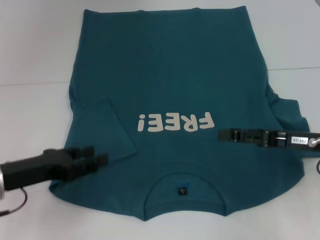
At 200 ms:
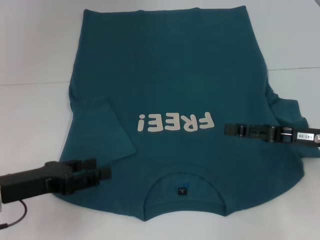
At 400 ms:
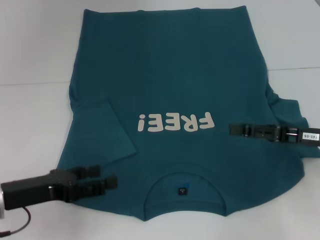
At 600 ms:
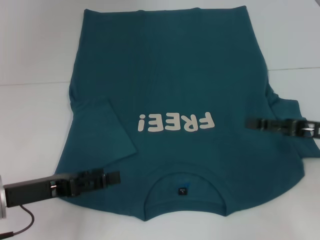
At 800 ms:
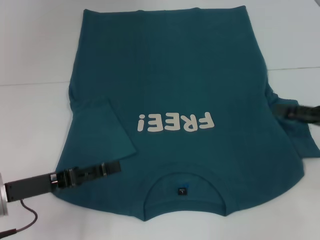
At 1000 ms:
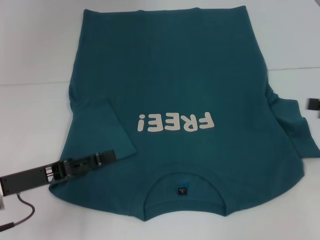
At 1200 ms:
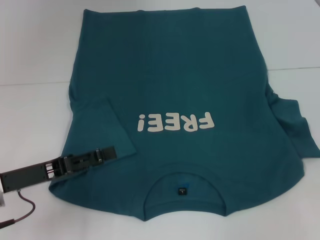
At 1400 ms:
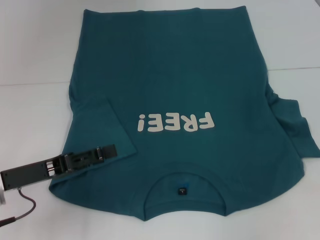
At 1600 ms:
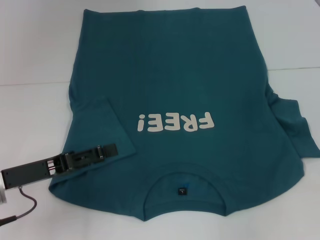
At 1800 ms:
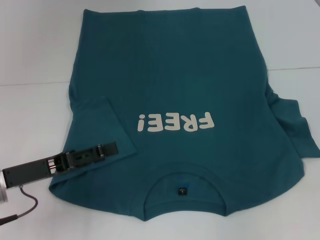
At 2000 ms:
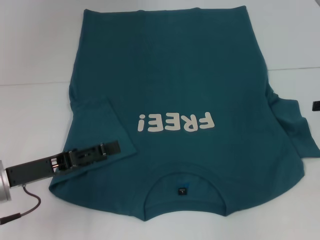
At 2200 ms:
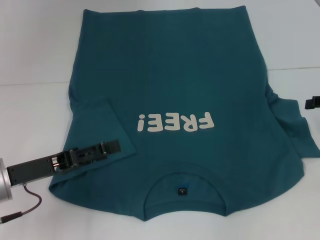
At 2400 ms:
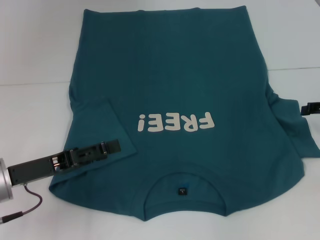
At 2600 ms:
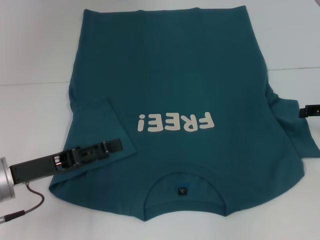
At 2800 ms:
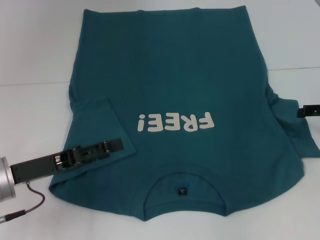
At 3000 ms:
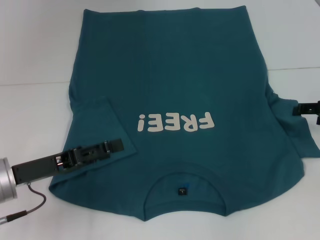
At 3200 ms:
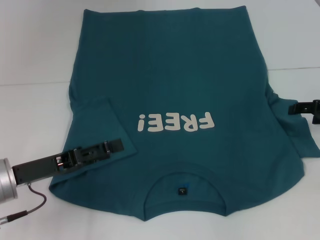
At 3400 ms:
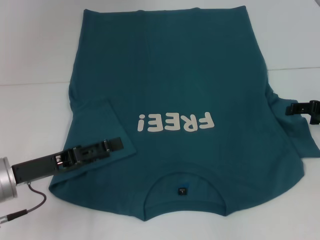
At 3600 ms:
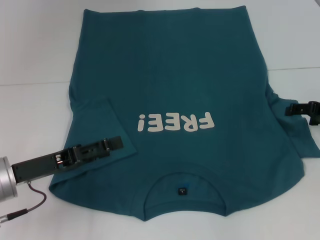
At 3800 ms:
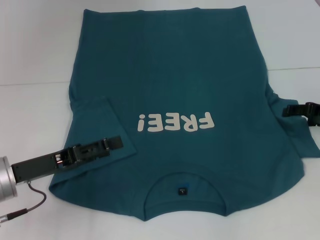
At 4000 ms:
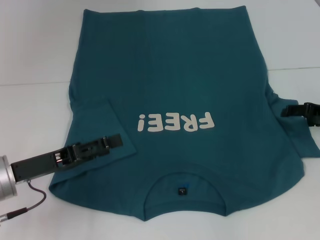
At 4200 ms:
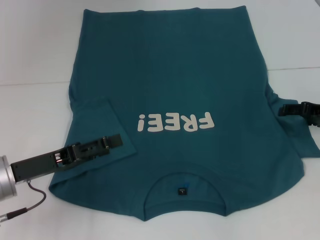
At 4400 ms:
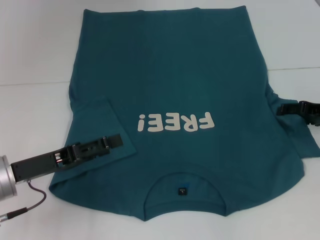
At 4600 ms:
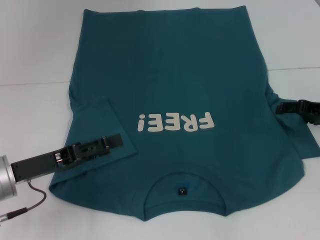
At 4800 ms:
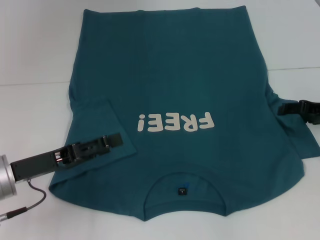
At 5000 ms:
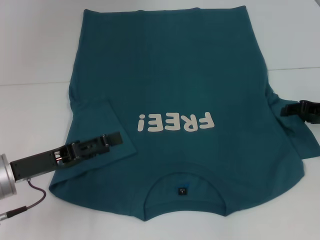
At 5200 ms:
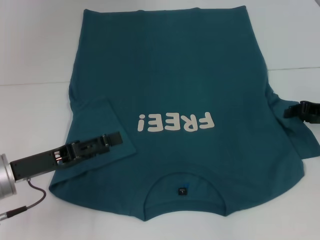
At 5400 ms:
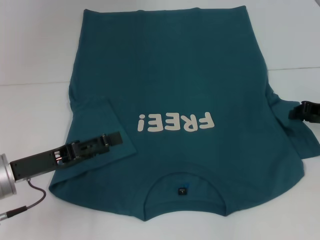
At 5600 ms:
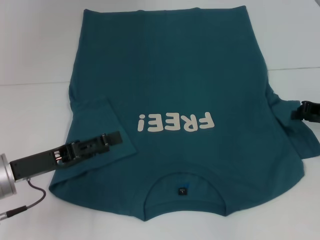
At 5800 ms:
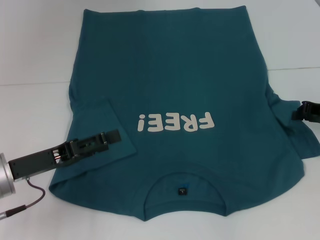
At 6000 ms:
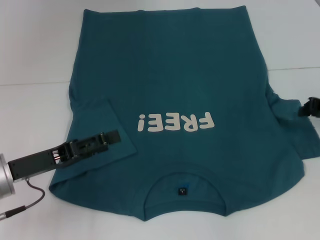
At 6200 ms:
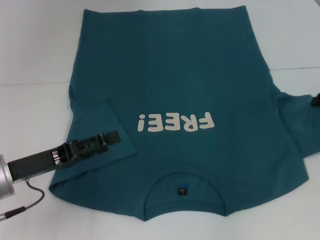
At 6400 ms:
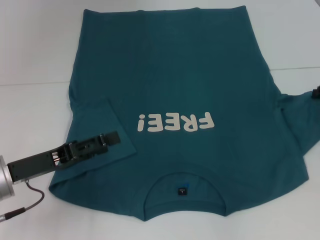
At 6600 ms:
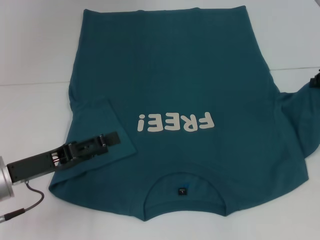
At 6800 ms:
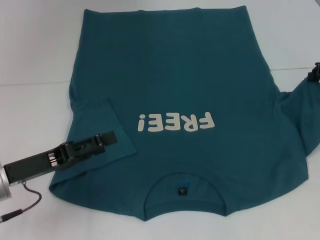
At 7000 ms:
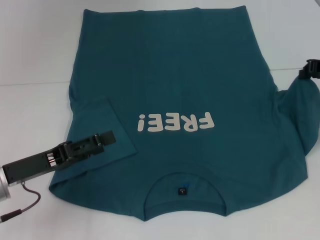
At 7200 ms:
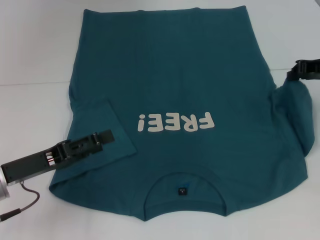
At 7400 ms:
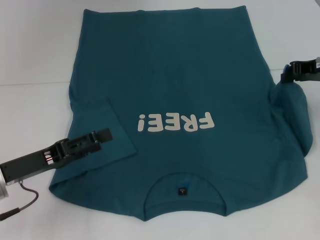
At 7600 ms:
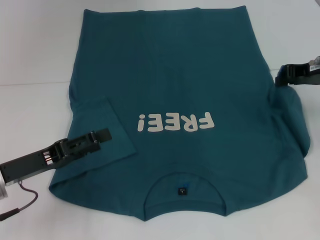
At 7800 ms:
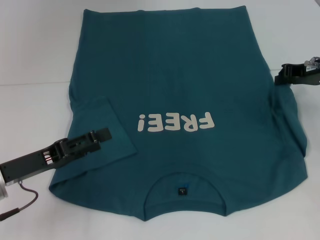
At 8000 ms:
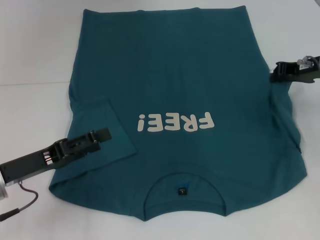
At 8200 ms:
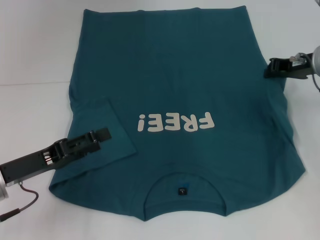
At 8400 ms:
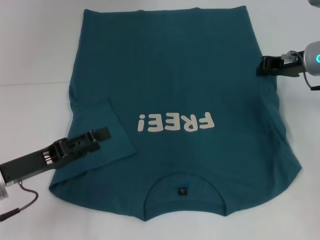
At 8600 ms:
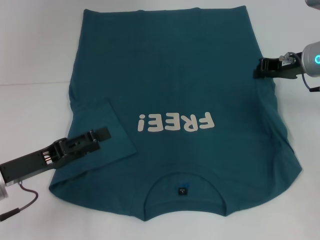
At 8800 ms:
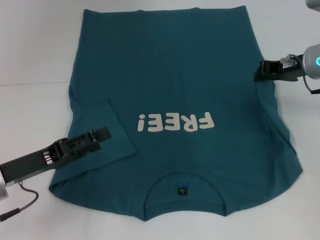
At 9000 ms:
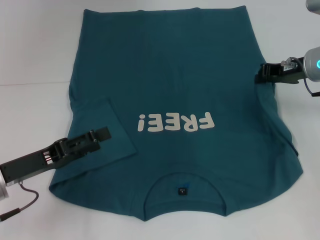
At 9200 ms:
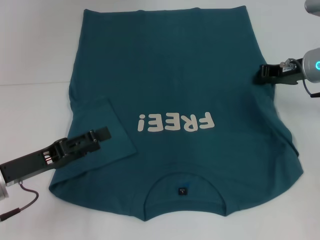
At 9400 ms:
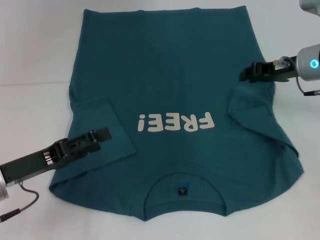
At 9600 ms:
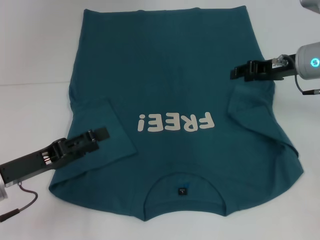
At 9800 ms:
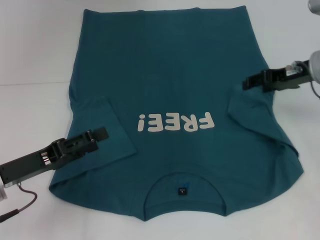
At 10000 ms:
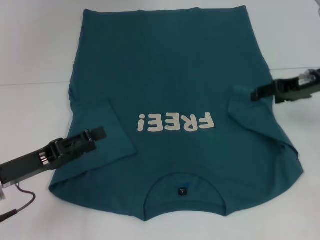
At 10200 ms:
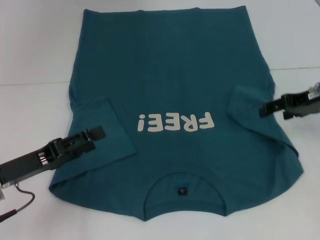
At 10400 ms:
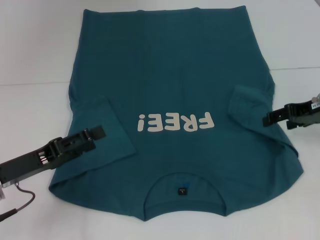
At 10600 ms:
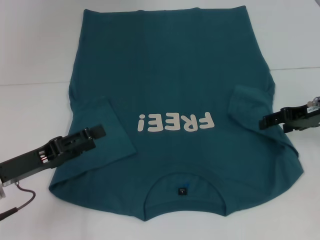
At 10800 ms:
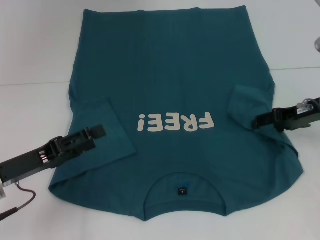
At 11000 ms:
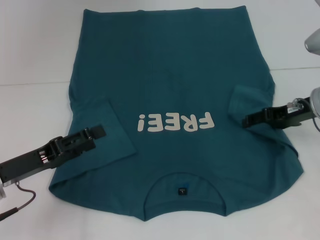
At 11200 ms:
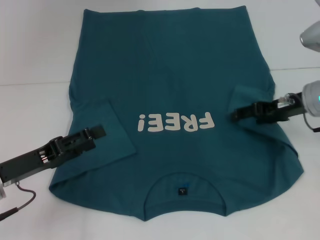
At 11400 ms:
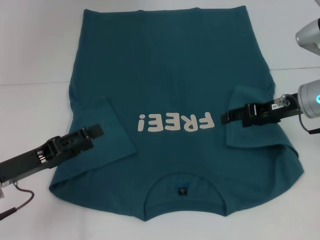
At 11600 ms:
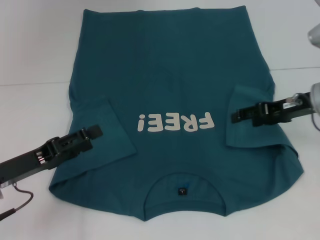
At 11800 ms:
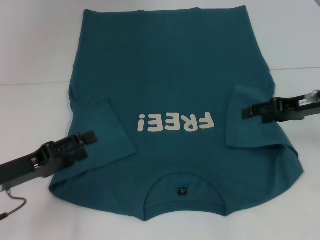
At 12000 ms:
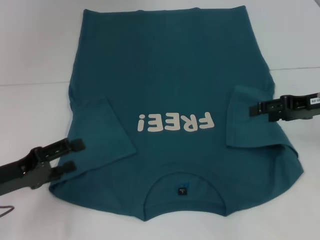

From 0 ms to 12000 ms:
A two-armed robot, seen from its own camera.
From 0 ms to 1600 ms: The right gripper shifts some 15 cm to the right and upward.
From 1600 ms to 3000 ms: The right gripper is displaced downward, to the left and forward by roughly 10 cm.
From 3000 ms to 4400 ms: There are only small adjustments of the grippers.
From 4400 ms to 6000 ms: The right gripper closes.
From 6000 ms to 7600 ms: The right gripper goes roughly 5 cm upward.
From 7600 ms to 9000 ms: The grippers move only a little.
From 9000 ms to 10400 ms: The right gripper moves roughly 5 cm, and opens up.
From 10400 ms to 12000 ms: The grippers move only a little.

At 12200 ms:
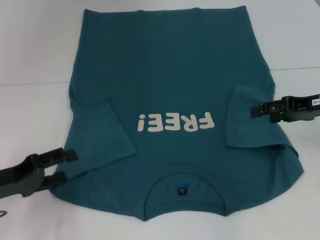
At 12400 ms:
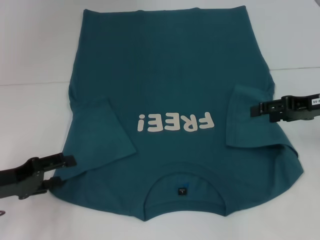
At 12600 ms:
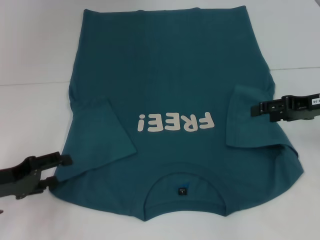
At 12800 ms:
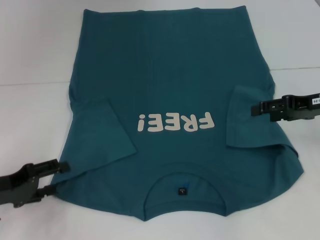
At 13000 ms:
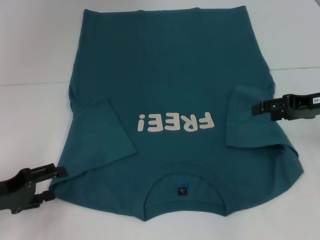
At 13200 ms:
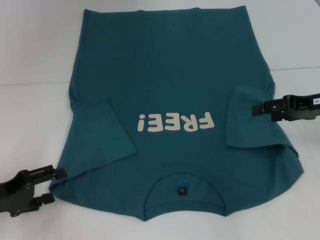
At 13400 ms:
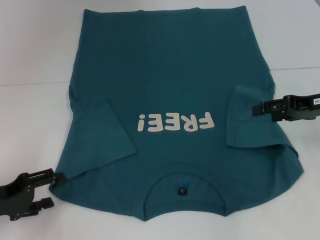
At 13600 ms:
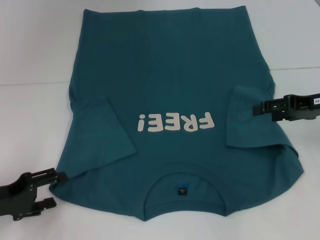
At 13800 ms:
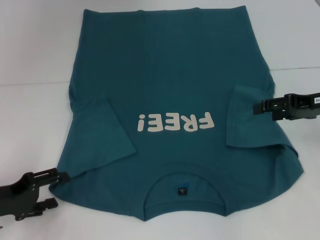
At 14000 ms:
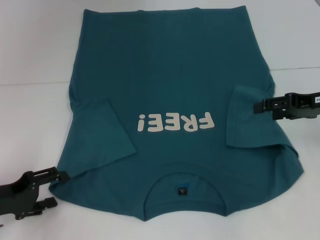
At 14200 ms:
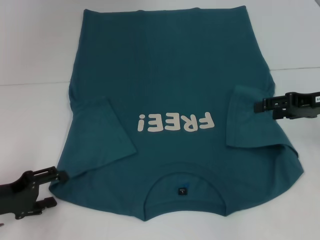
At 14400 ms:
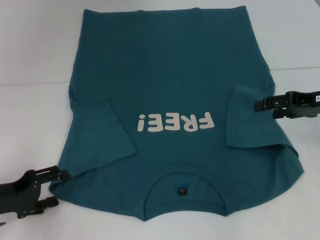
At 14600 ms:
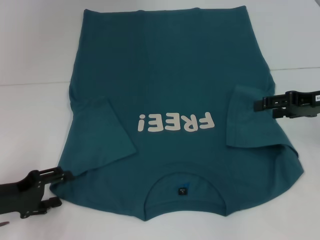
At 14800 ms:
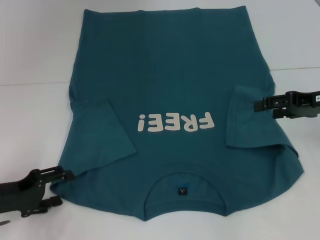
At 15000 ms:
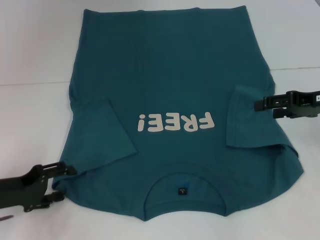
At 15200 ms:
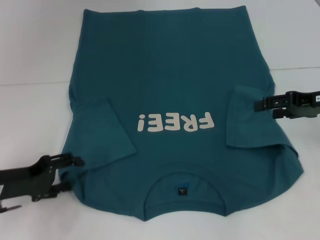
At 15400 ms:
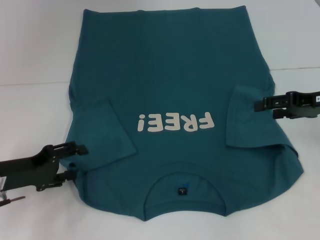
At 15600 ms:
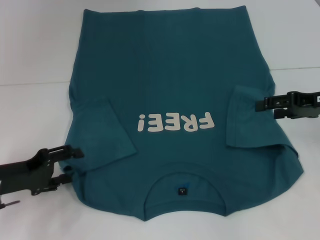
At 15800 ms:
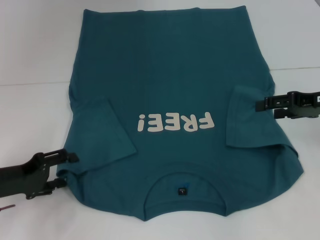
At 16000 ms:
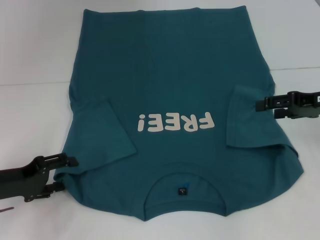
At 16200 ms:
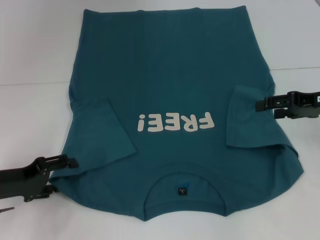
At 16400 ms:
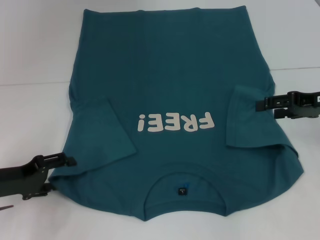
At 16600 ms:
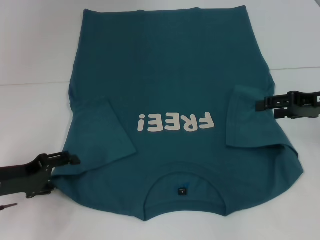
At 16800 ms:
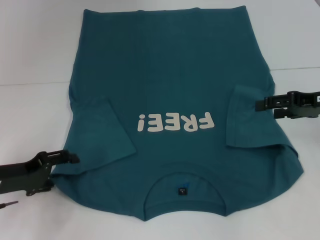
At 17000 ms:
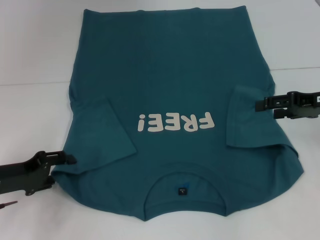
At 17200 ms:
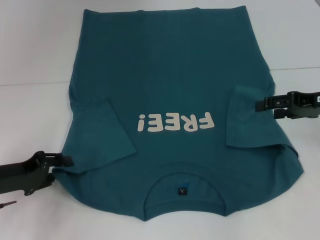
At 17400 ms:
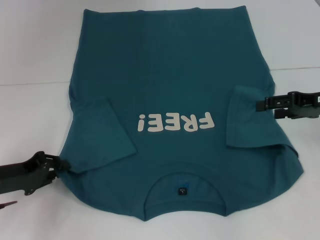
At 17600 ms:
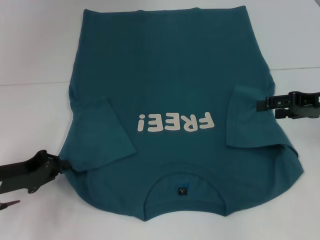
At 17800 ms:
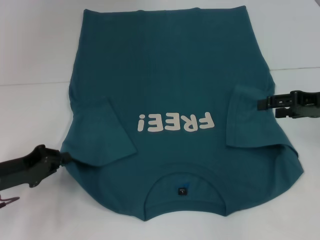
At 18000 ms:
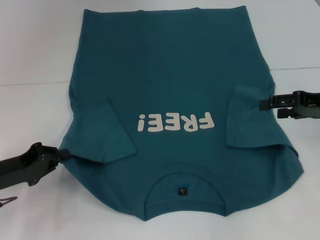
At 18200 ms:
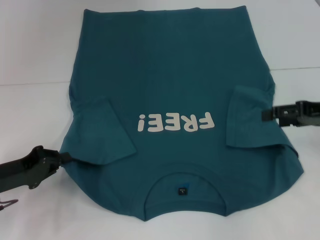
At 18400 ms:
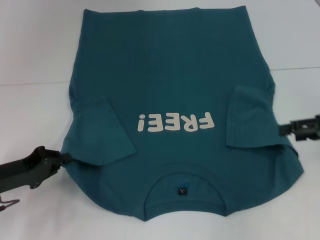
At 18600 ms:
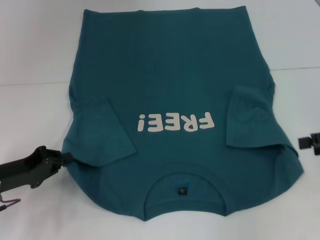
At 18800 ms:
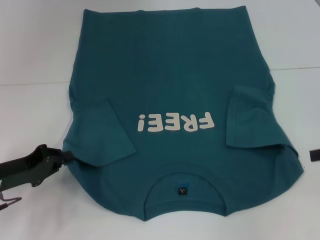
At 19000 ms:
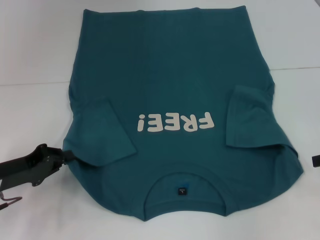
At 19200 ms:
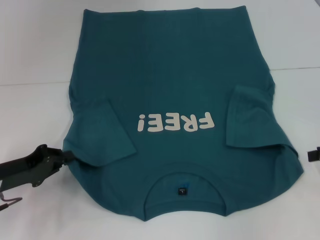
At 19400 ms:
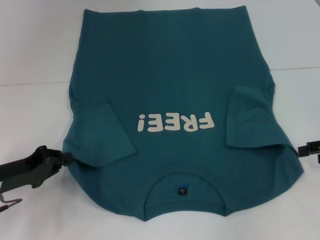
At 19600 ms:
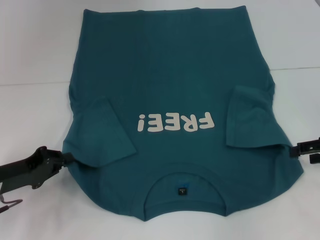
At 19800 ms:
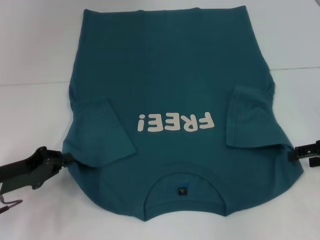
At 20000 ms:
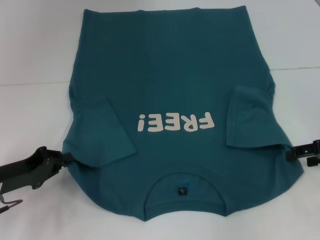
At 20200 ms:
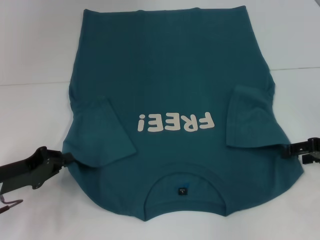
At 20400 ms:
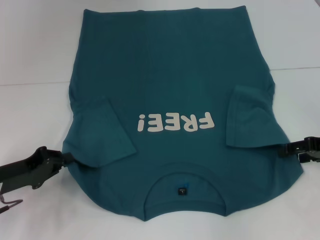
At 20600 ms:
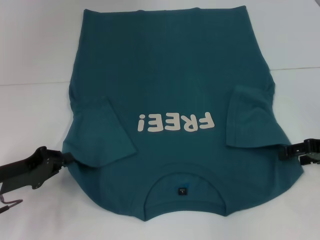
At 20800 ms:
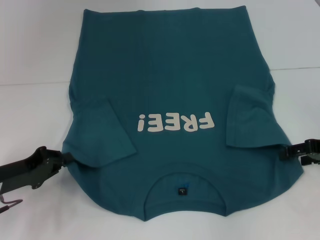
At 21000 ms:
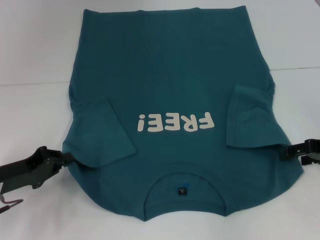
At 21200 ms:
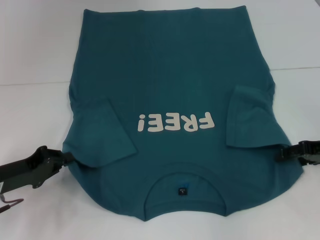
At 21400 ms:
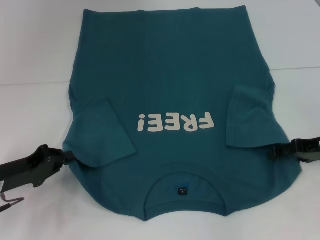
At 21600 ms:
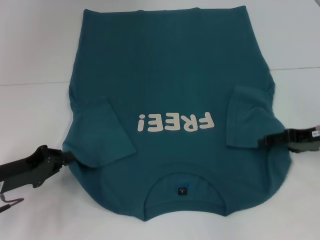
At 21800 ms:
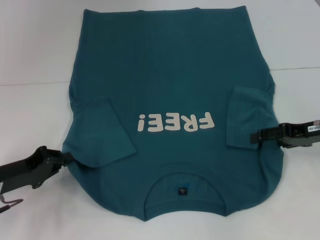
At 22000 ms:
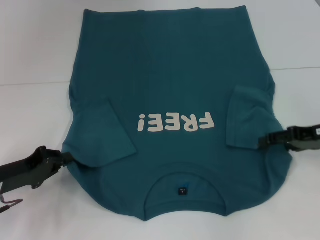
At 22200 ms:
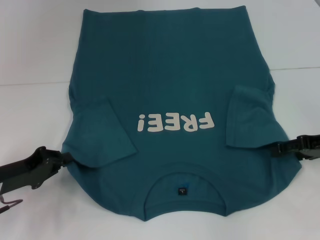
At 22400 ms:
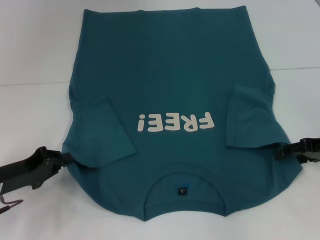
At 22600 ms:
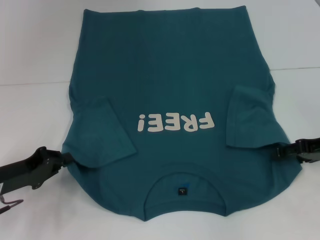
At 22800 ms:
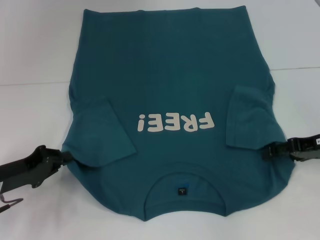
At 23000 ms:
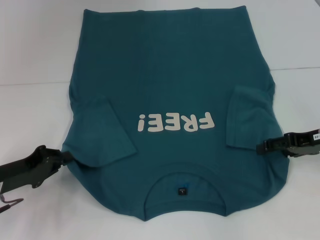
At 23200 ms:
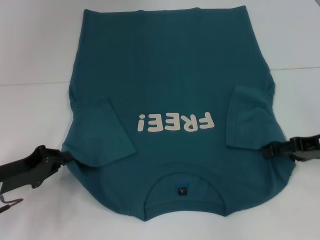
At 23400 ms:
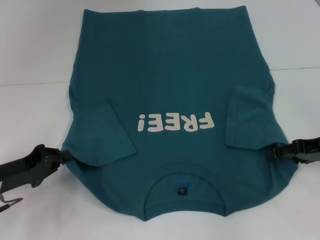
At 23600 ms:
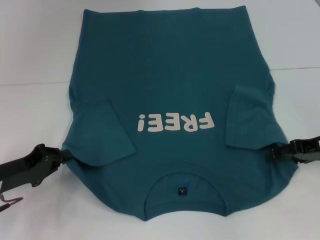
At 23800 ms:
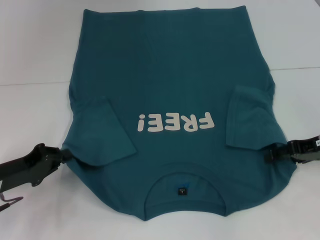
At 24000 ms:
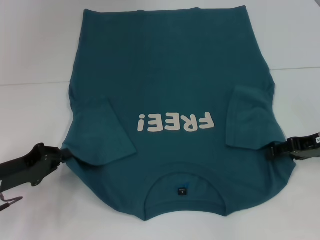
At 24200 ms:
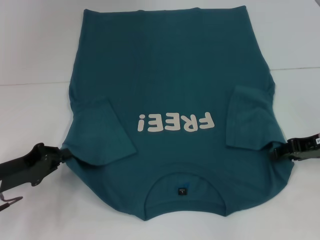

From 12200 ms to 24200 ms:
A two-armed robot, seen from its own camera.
Step, from 12600 ms to 18400 ms: Grab the bottom left corner with your left hand.
From 12200 ms to 15200 ms: The grippers make only small movements.
From 15200 ms to 16600 ms: Neither gripper changes place.
From 16600 ms to 18200 ms: The left gripper closes.
From 19800 ms to 24200 ms: The grippers move only a little.
